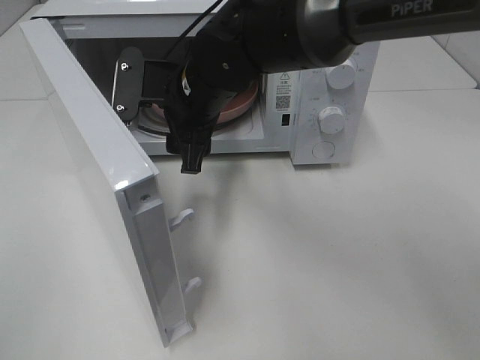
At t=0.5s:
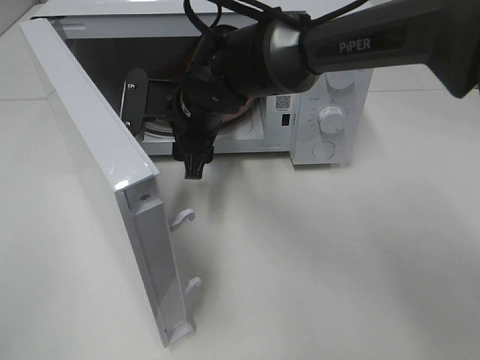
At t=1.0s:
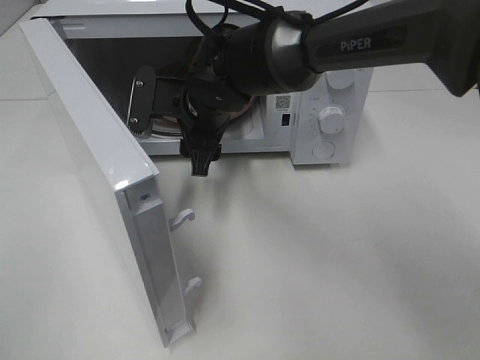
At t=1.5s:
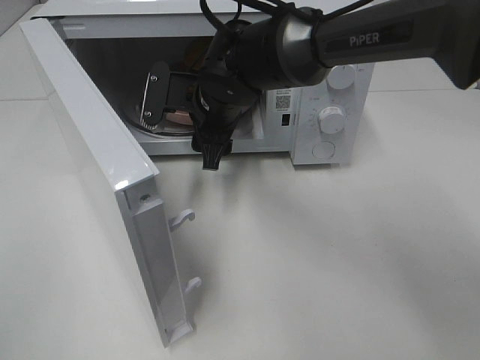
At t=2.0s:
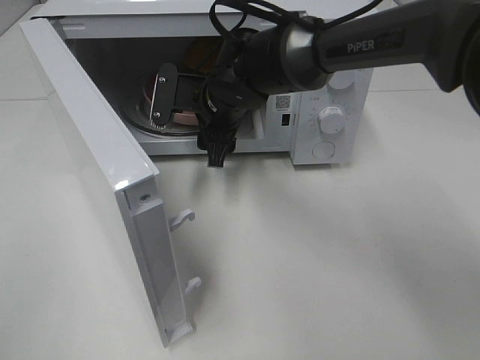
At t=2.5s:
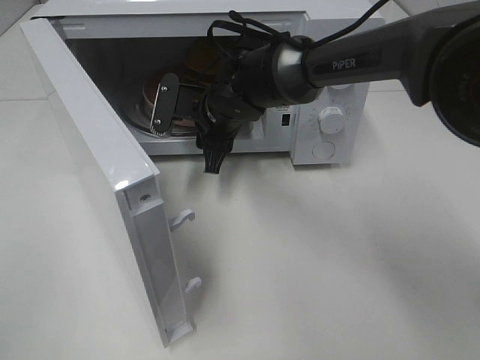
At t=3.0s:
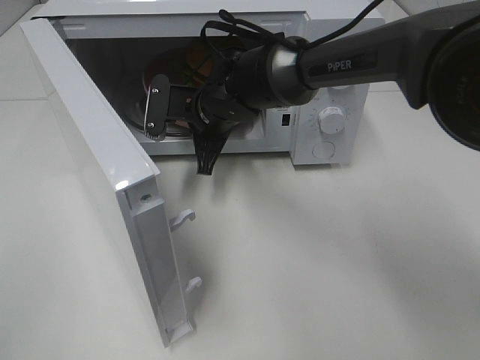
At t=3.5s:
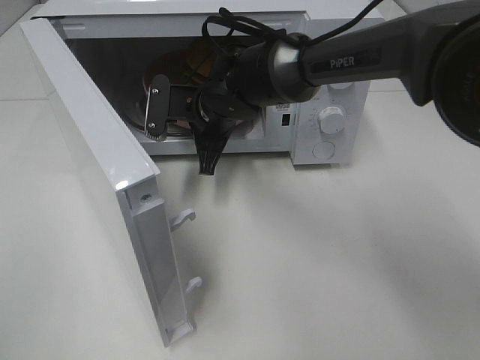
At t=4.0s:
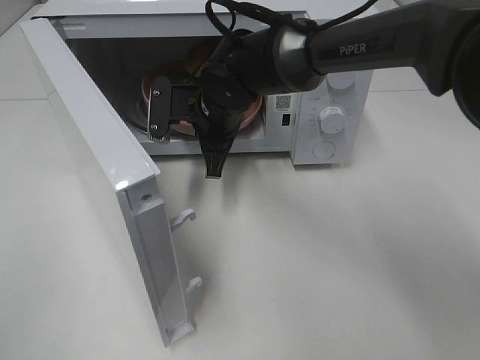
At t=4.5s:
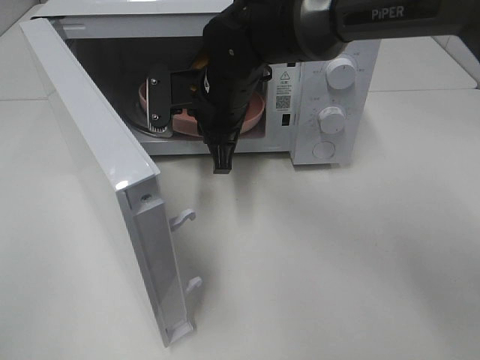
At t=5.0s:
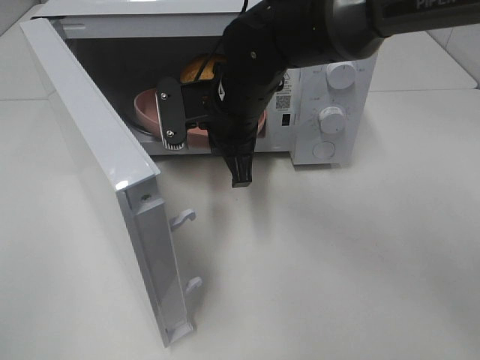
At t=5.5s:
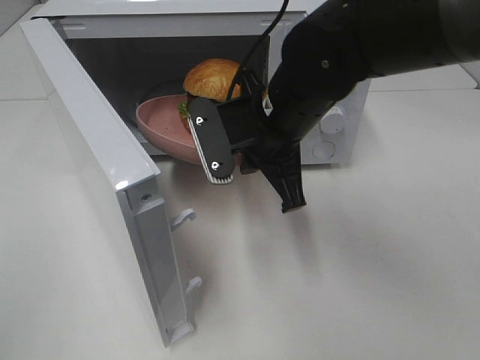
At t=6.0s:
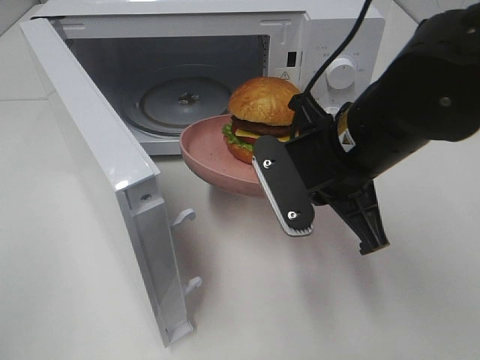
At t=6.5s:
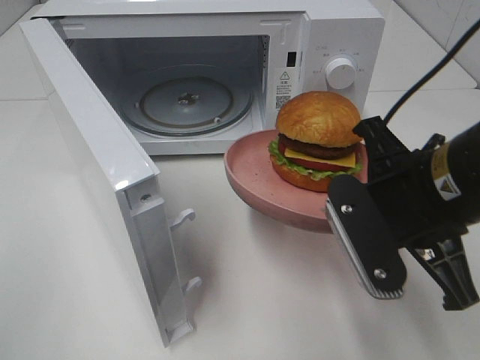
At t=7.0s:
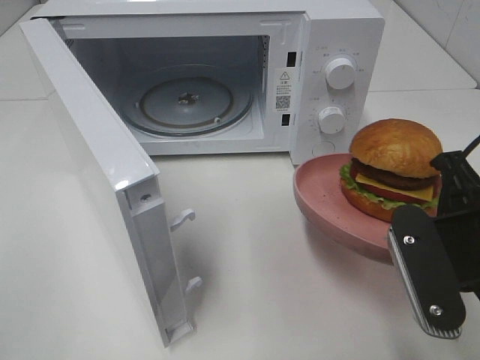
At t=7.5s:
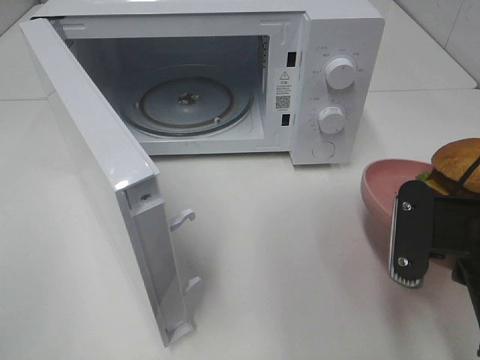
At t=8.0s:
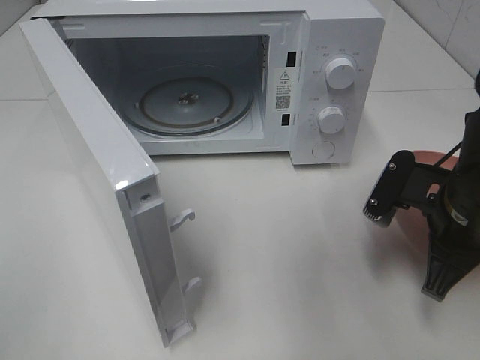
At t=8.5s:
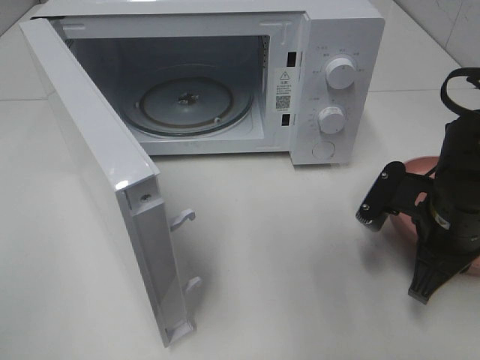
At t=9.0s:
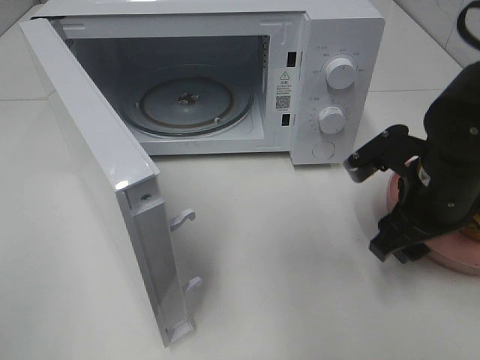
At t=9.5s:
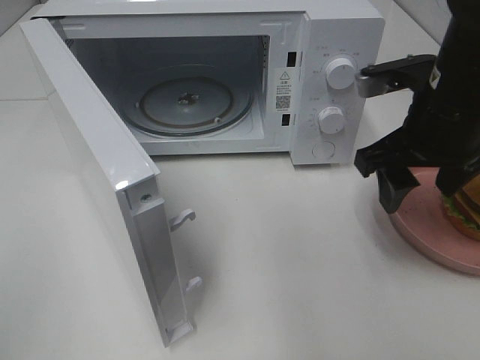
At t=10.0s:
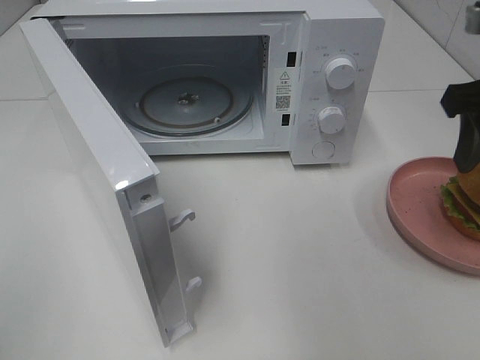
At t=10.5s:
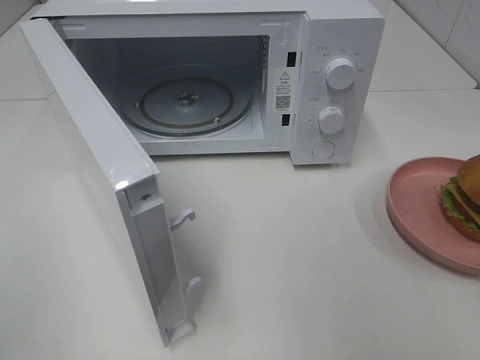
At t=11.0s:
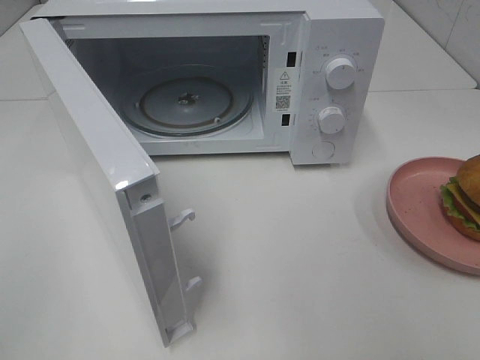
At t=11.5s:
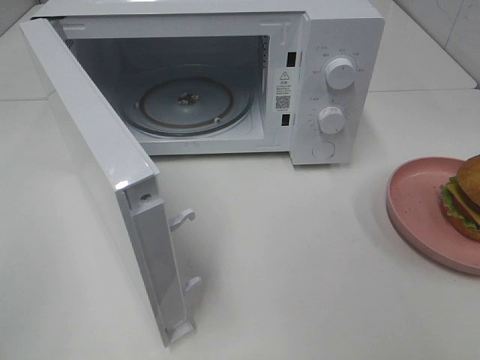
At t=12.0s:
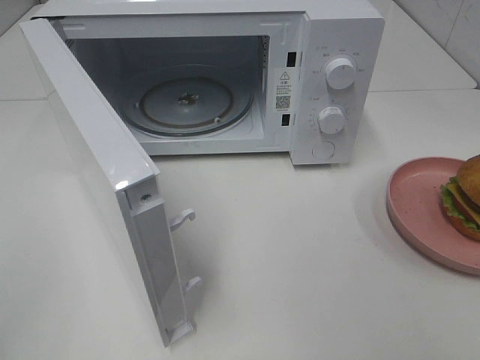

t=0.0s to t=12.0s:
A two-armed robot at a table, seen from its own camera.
Task of the whole recording: Heat the burger.
Step, t=0.0s to t=2.5s: Right hand: grab the plate with the hamburger.
Step, t=3.0s to t=8.5s: Right hand: place the plate on the table.
t=0.0s to t=2.0s: The right gripper moves roughly 5 cm.
t=2.0s to t=4.0s: The right gripper closes up.
t=4.0s to t=6.0s: The right gripper is displaced backward, to the right and upward by about 20 cm.
t=6.0s to t=8.0s: The right gripper travels to the right and downward by about 15 cm.
t=8.0s to t=10.0s: The right gripper is displaced upward by about 15 cm, and opens up.
t=10.0s to t=12.0s: The right gripper travels backward by approximately 25 cm.

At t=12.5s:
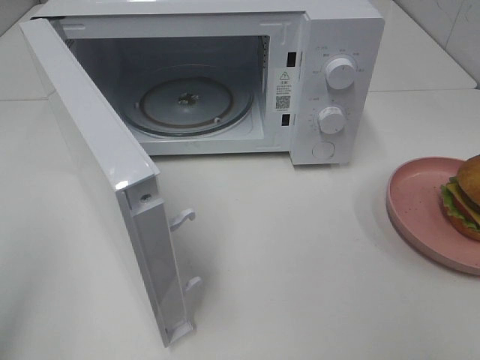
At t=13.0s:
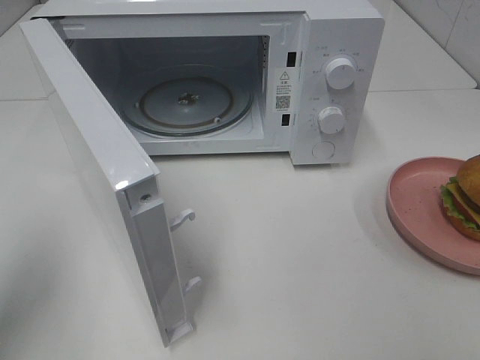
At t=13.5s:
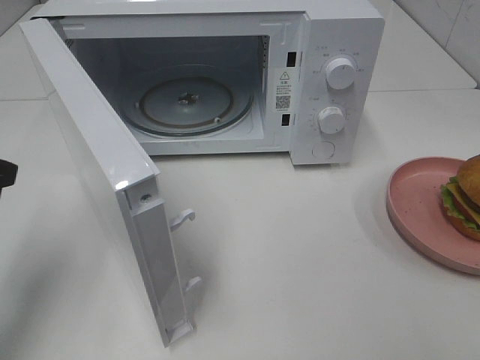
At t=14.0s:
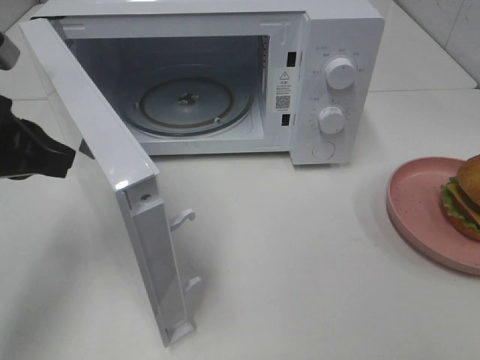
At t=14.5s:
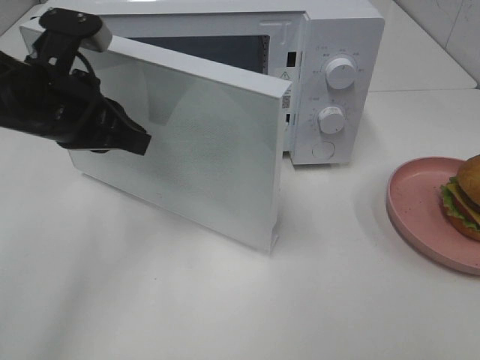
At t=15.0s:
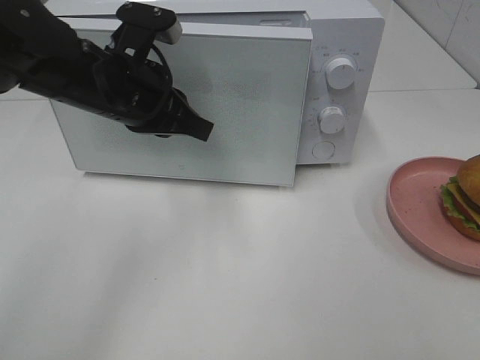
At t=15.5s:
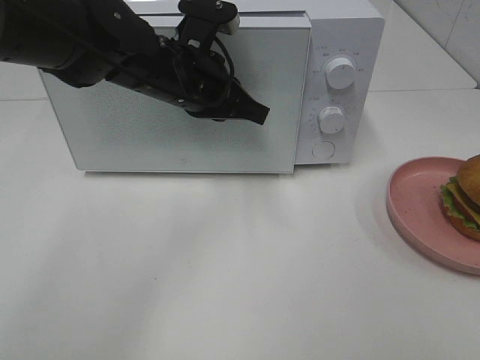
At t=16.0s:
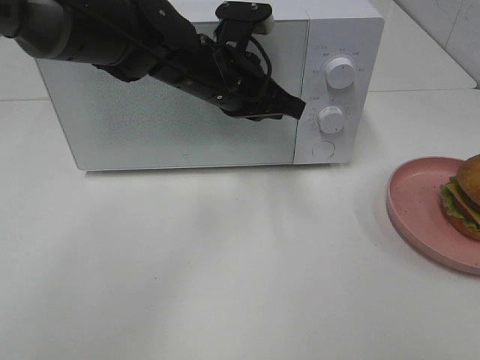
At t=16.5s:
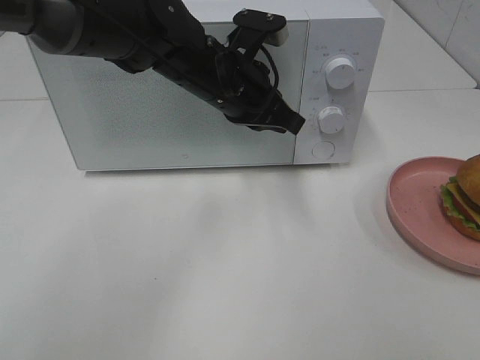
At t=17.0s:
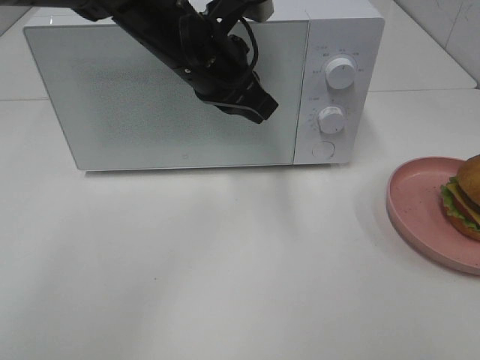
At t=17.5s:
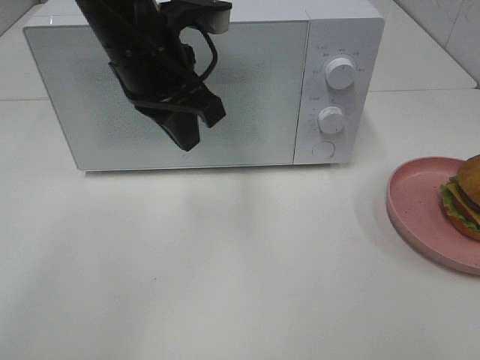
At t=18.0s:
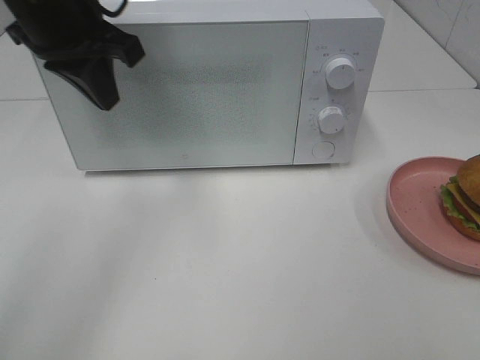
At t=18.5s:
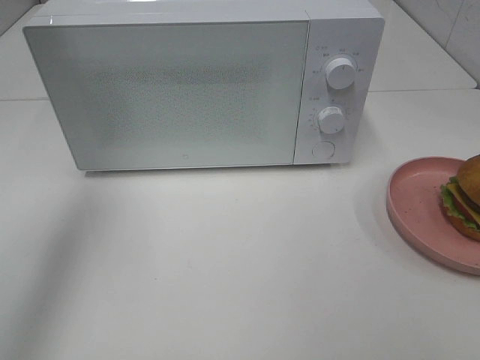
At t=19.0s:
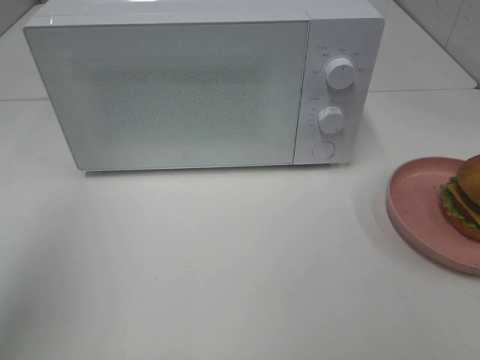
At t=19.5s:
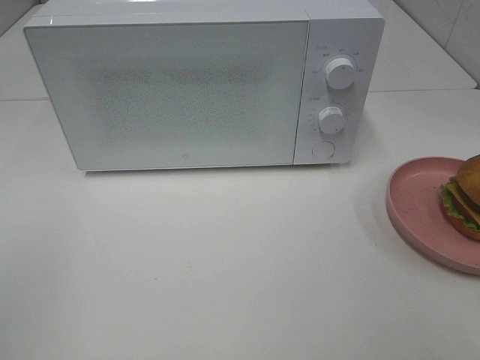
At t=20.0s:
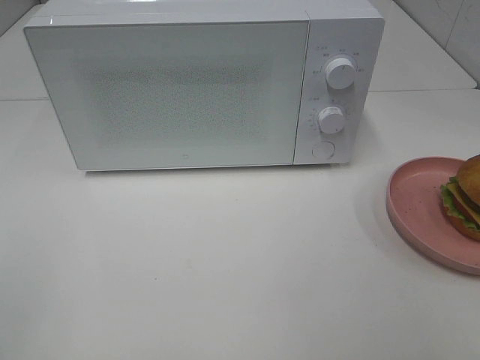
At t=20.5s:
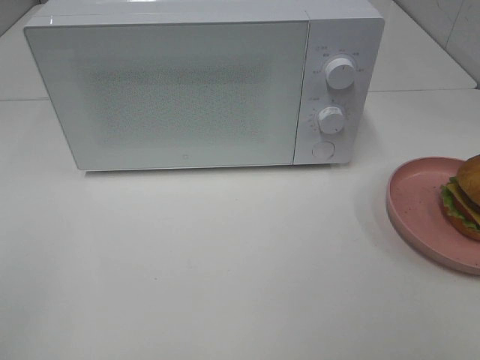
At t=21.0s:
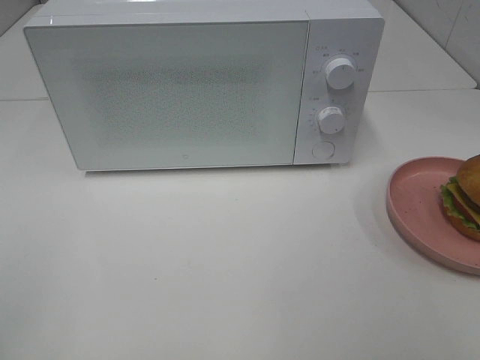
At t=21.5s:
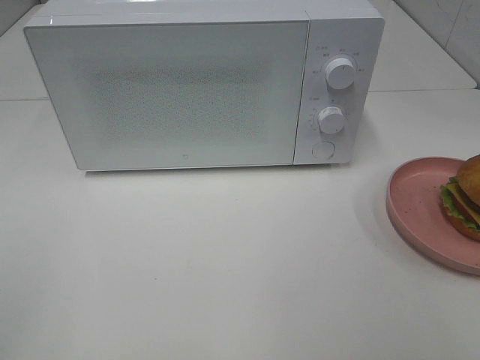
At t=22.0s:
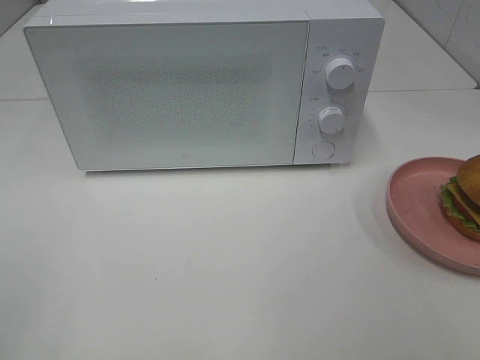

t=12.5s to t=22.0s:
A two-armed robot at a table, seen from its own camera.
Task of the whole recording: Heat the burger.
Step, t=12.5s to t=16.0s: Left hand: close the microwave door.
t=12.5s to t=14.5s: The left gripper shifts roughly 25 cm forward and to the right.
t=14.5s to t=16.5s: The left gripper travels to the right and forward by some 15 cm.
t=16.5s to t=18.0s: The left gripper is displaced to the left and upward by some 20 cm.
t=18.0s to t=20.0s: The left gripper goes some 40 cm backward and to the left.

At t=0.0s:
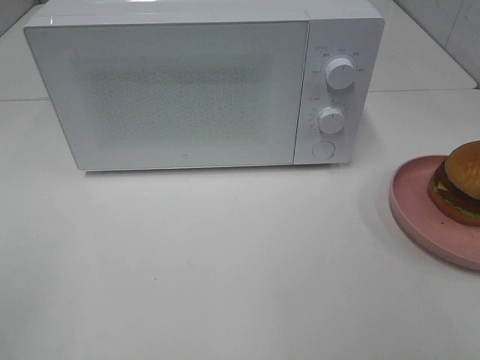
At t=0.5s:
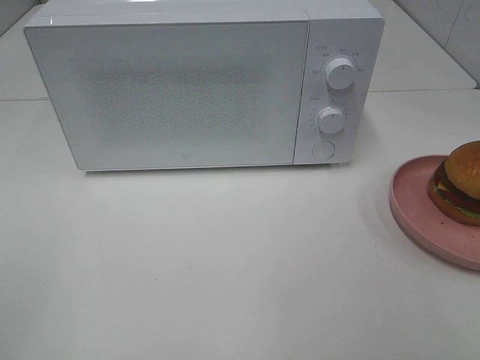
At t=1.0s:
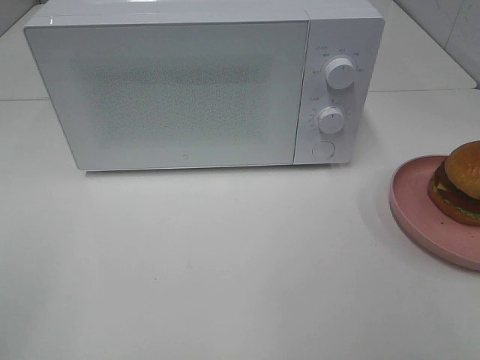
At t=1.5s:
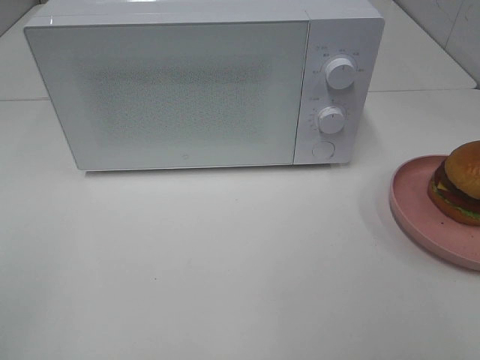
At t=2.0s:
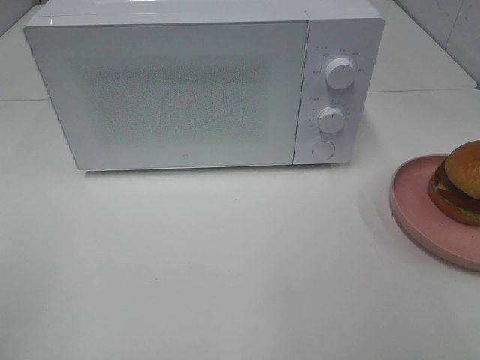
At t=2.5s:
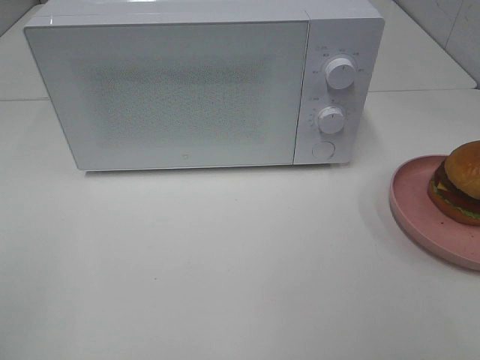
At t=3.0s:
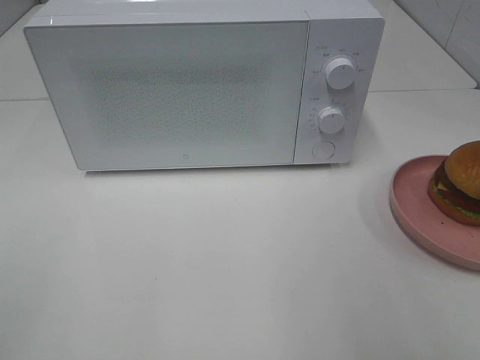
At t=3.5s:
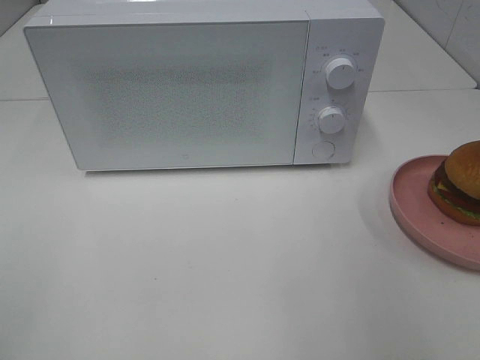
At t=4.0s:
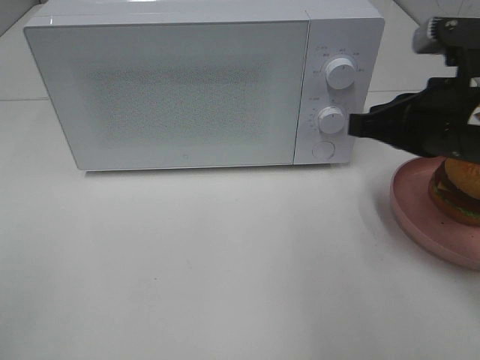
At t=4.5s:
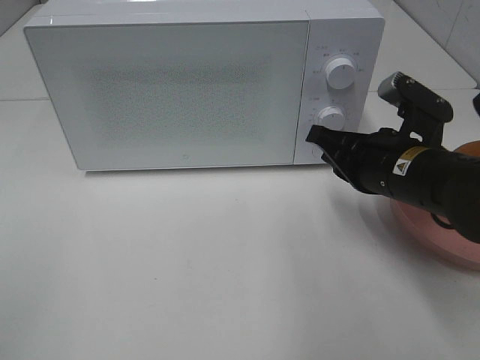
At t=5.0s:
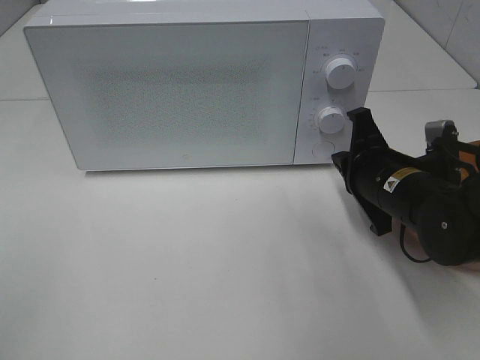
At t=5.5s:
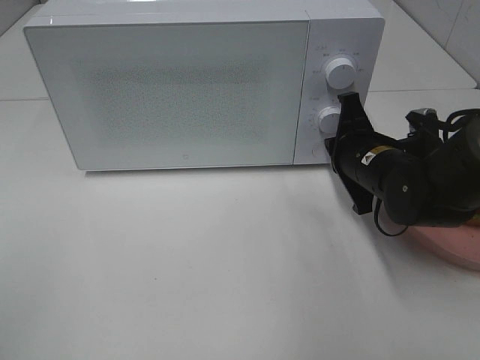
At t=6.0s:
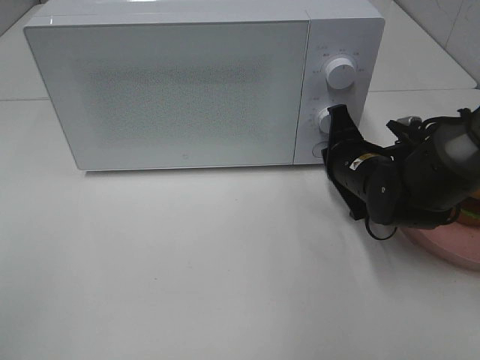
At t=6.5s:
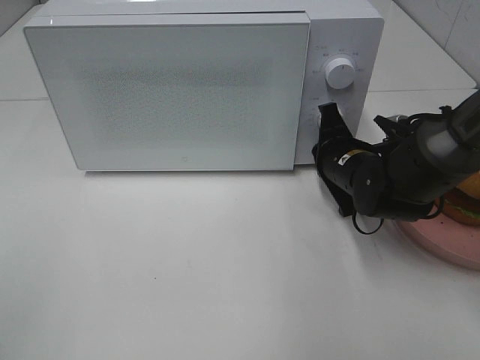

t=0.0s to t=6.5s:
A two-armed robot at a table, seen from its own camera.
Task of the whole recording: Heat the burger.
t=0.0s to t=2.0s: Both grippers stay about where they are.
t=2.0s to t=4.5s: The right gripper shifts about 35 cm forward, downward and to the left, and closes its fingers.
t=4.5s to t=6.5s: The right gripper shifts some 10 cm forward and downward.
